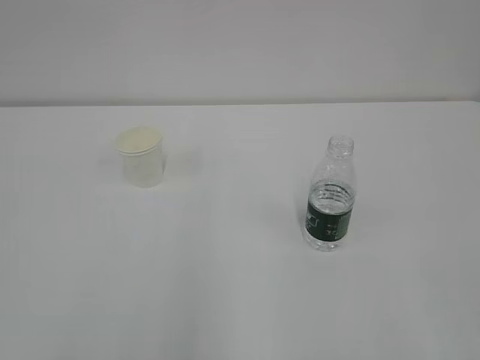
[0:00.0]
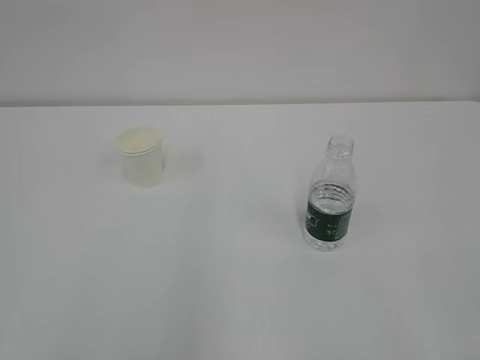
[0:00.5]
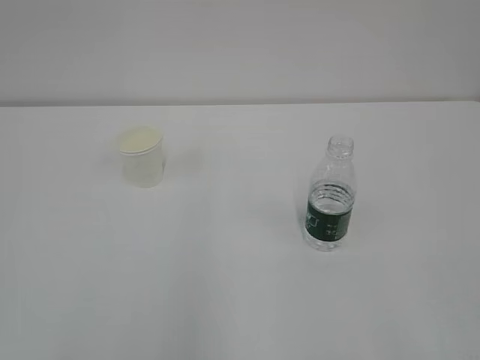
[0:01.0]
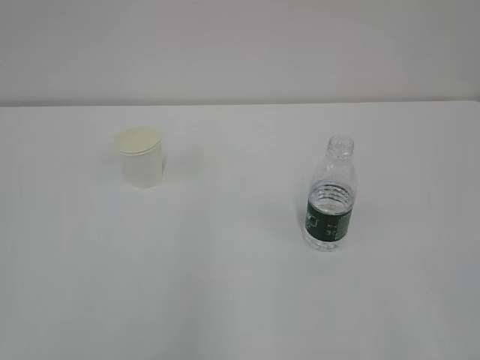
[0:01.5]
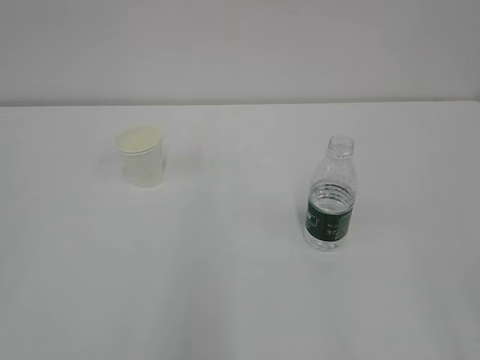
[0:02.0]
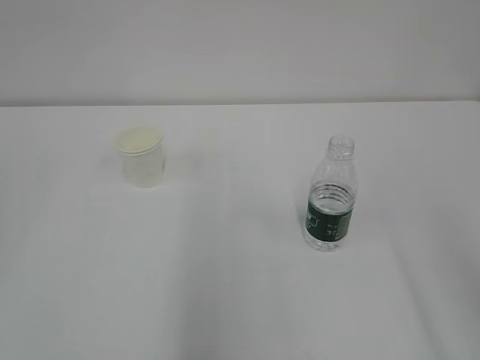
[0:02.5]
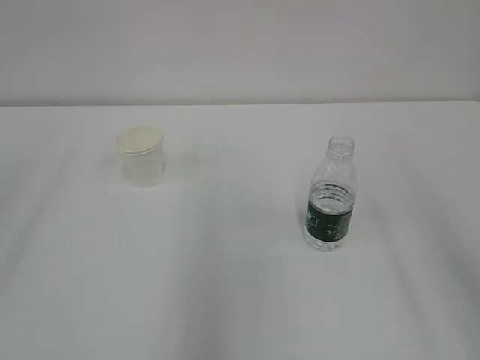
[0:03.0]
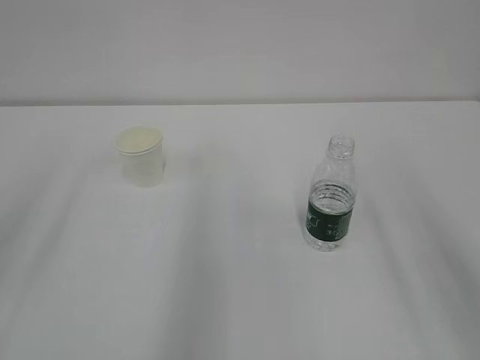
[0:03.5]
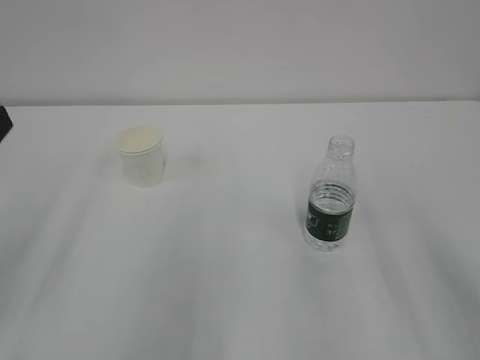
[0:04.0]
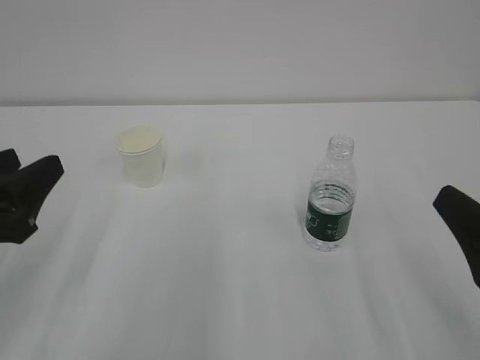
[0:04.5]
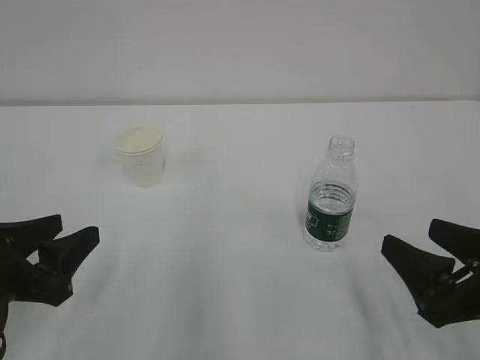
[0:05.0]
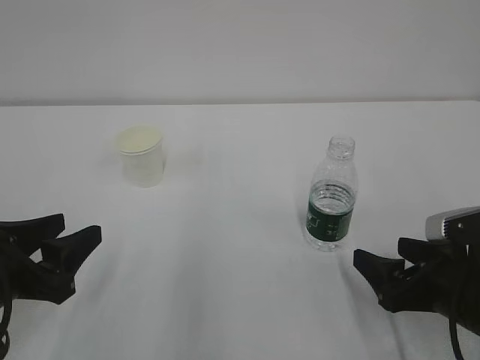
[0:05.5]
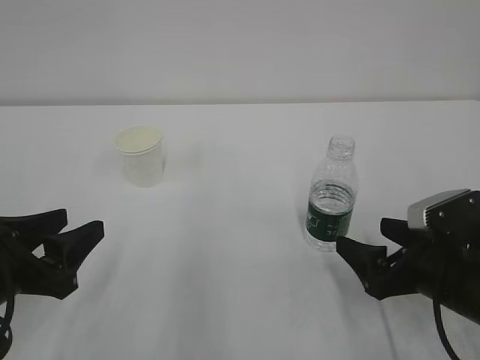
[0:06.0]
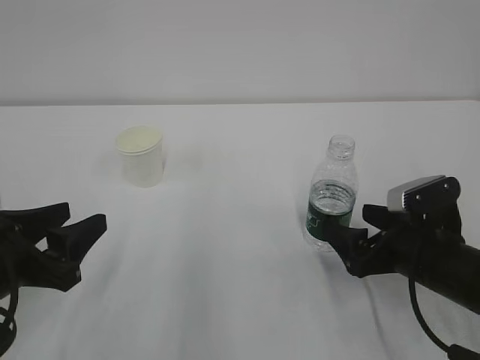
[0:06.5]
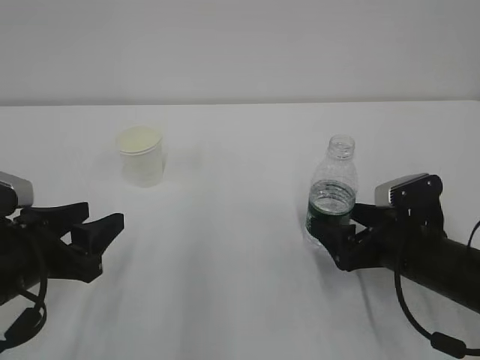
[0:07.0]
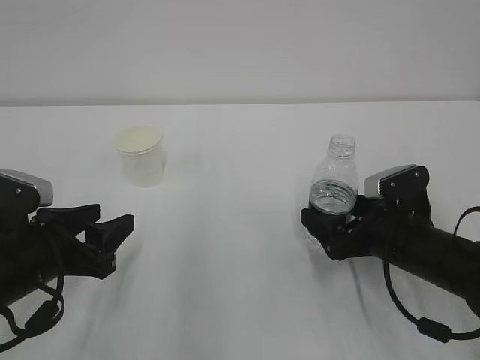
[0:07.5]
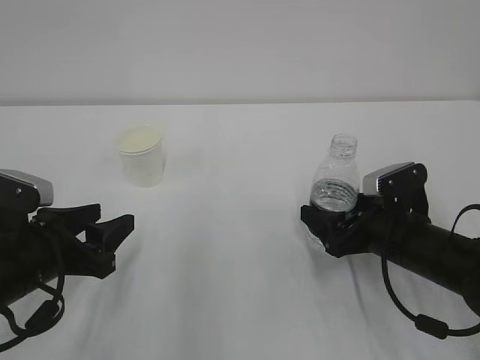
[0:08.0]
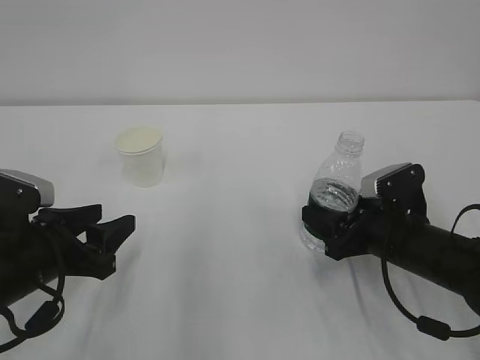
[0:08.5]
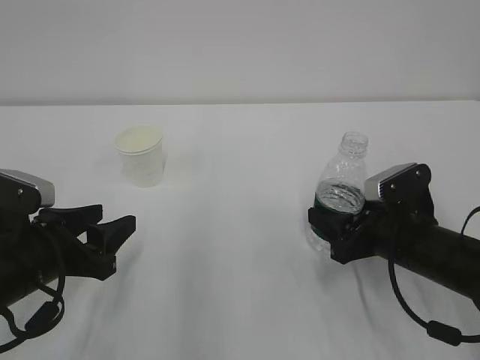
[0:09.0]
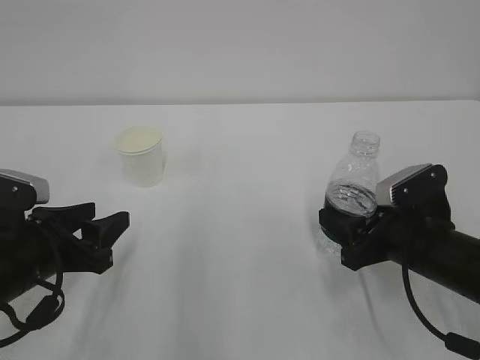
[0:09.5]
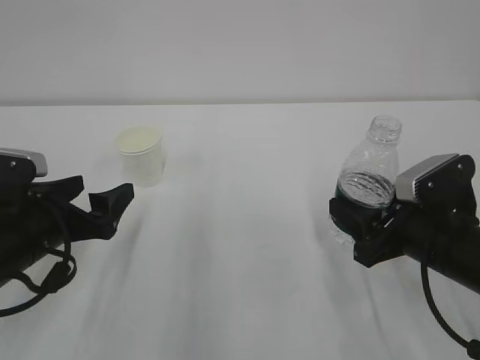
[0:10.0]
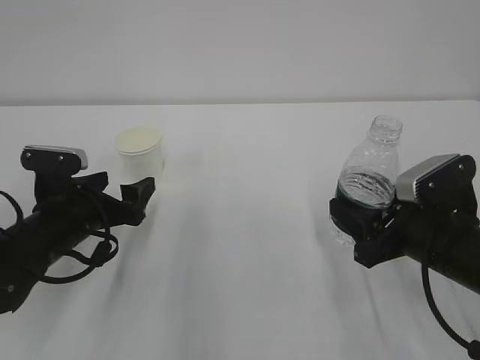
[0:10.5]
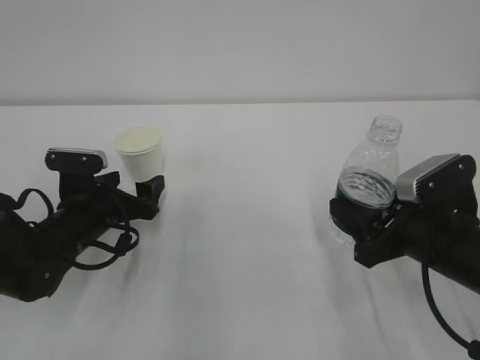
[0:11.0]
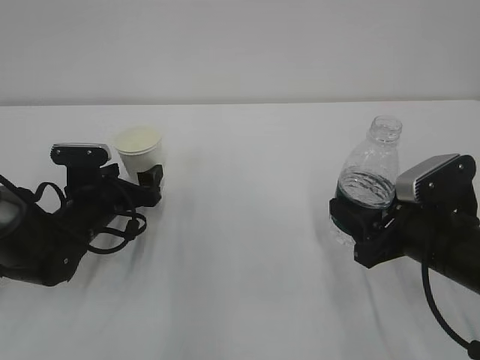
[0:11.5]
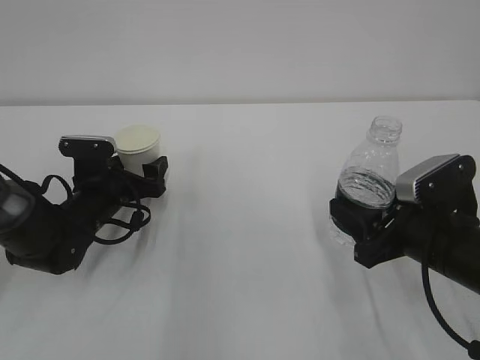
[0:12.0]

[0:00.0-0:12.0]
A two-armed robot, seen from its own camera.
0:04.0 to 0:06.0: The left gripper travels downward by approximately 10 cm. Meanwhile the right gripper heads downward and forward, covering approximately 20 cm, and opens up.
0:06.0 to 0:08.0: The right gripper moves forward, approximately 5 cm. The left gripper changes place by roughly 5 cm.
0:08.0 to 0:10.0: The right gripper shifts by approximately 5 cm, and closes up, while the left gripper opens up.
0:10.0 to 0:12.0: The left gripper goes approximately 15 cm forward and downward.

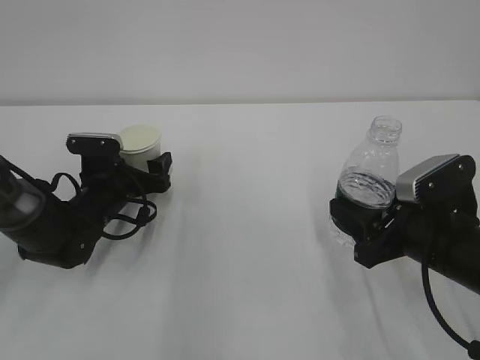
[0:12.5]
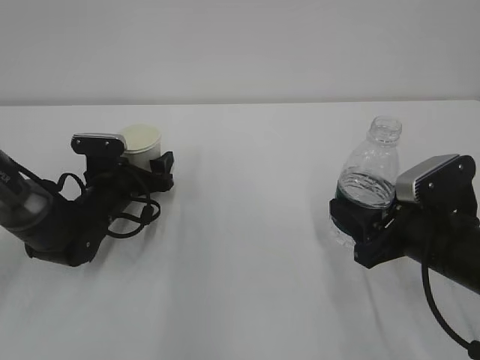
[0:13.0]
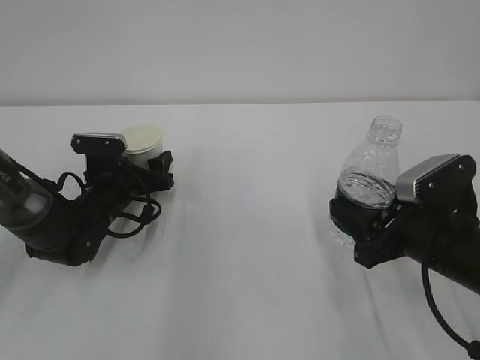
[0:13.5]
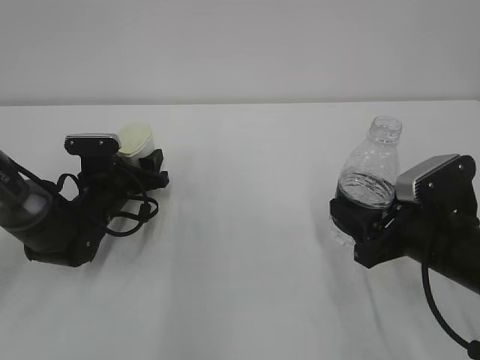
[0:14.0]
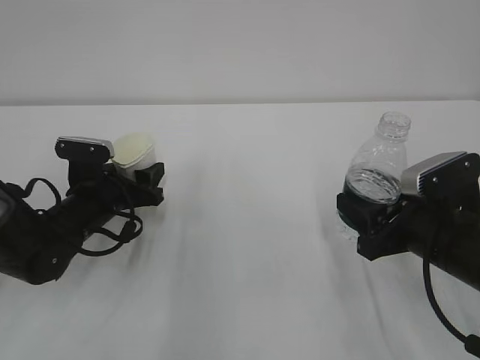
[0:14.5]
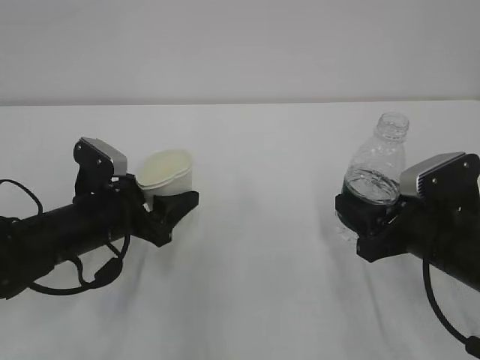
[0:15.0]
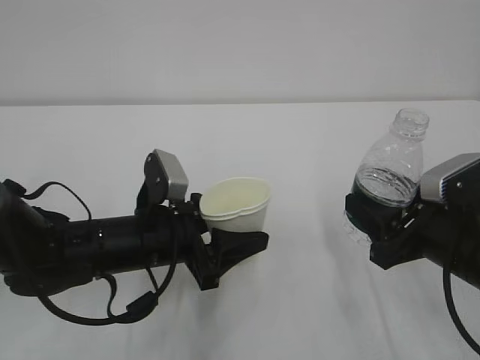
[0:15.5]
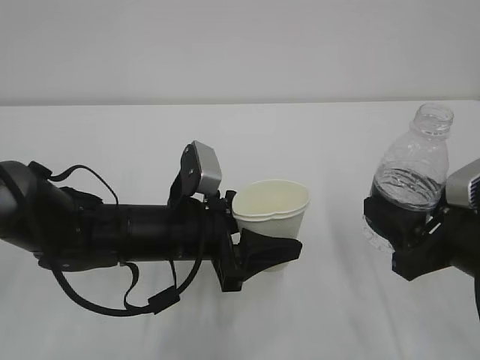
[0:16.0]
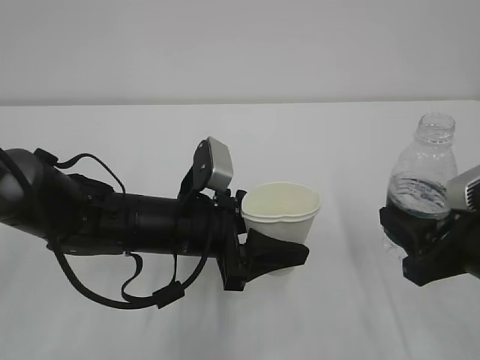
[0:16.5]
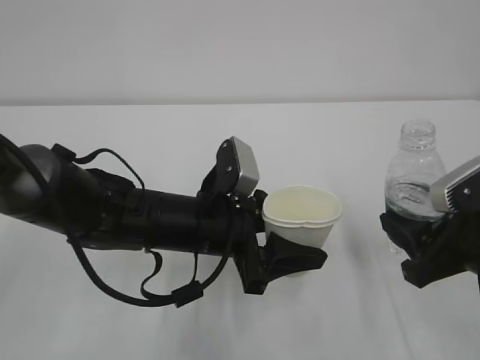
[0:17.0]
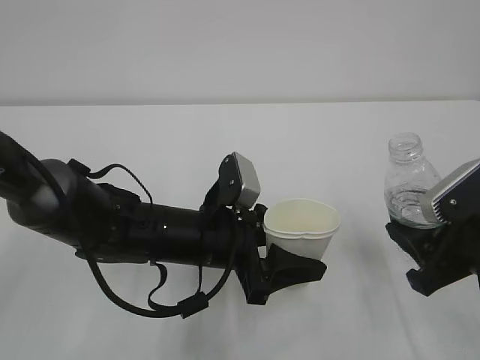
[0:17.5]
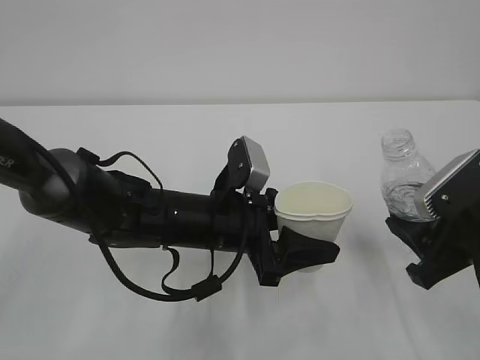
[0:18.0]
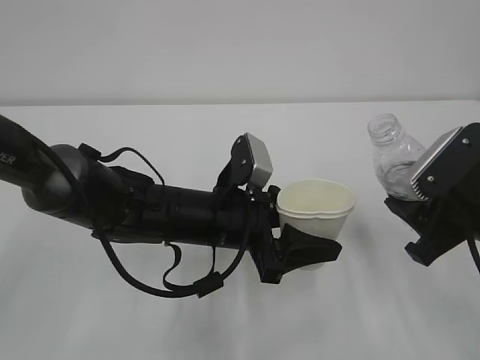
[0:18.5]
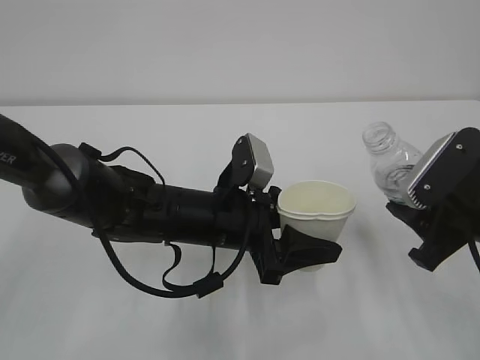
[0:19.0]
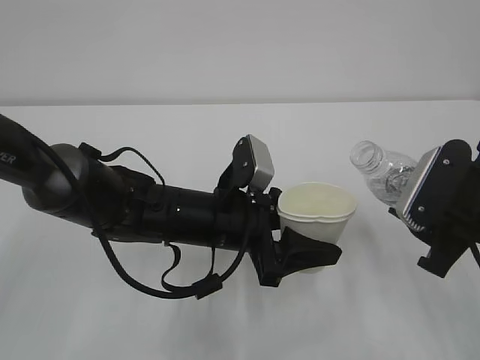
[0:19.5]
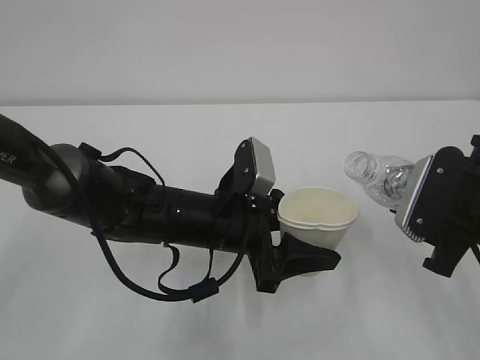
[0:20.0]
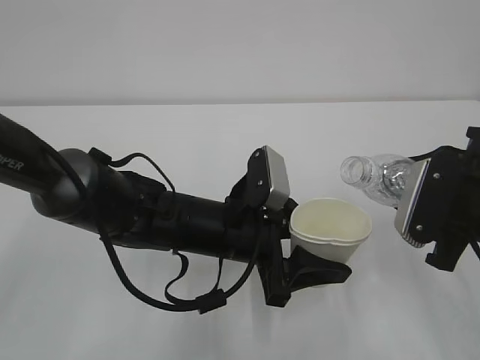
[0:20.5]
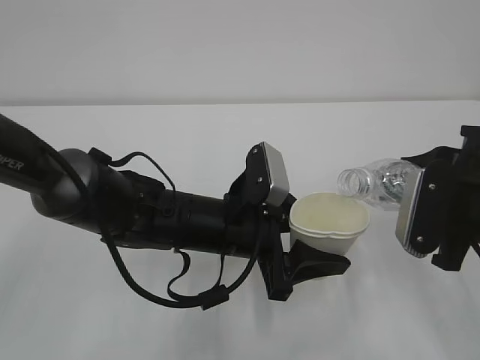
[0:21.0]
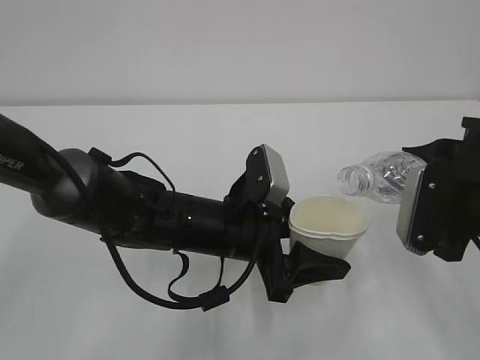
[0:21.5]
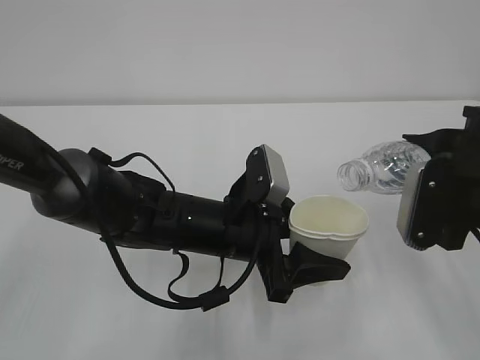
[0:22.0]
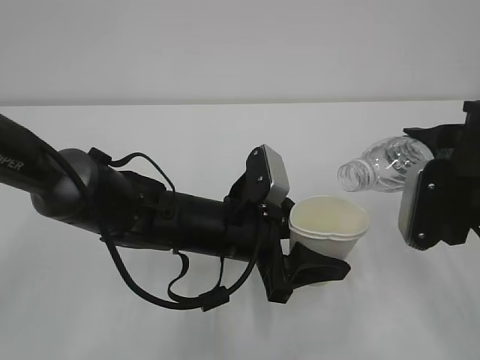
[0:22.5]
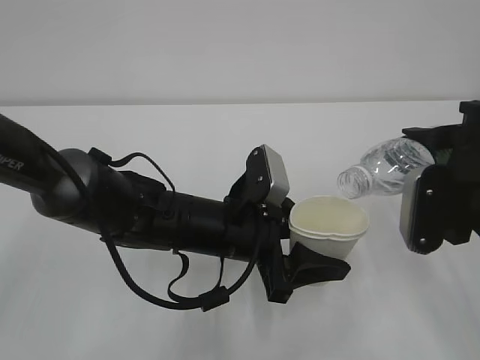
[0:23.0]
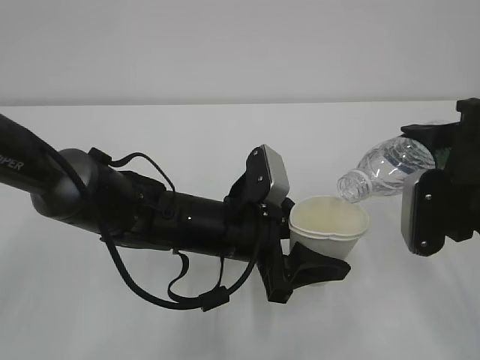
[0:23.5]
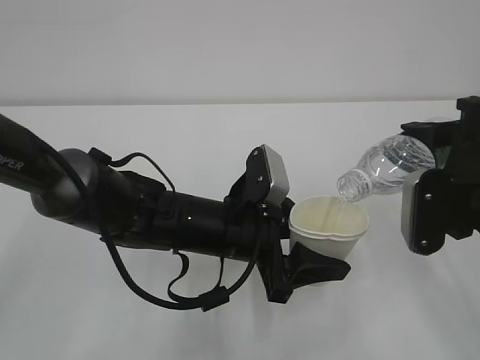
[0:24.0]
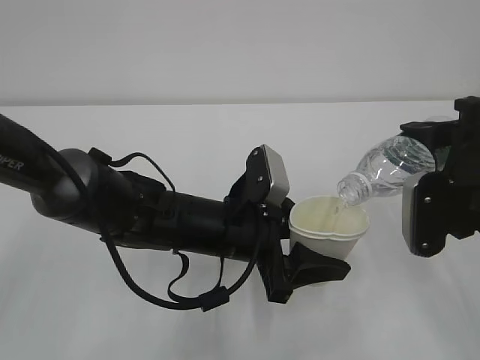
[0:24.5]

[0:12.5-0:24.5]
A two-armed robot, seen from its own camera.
0:12.5 to 0:14.5: The left gripper closes.
0:14.5 to 0:16.5: The right gripper changes place by some 5 cm, while the left gripper is displaced to the right, backward and upward by some 15 cm.
0:22.5 to 0:24.5: The grippers stay close to where they were, moving slightly.

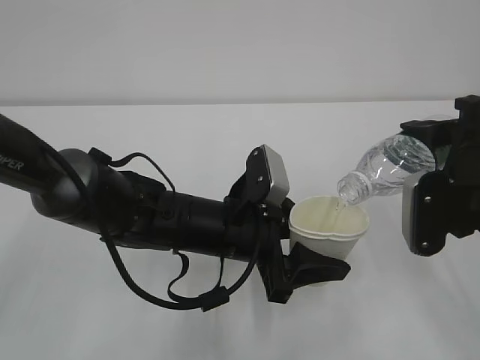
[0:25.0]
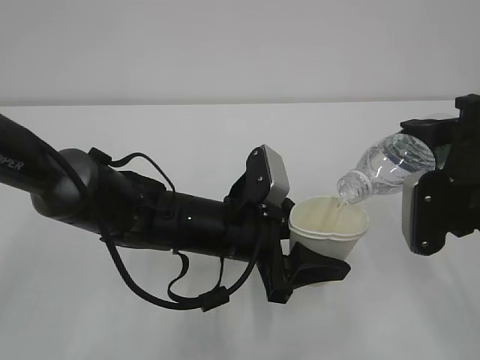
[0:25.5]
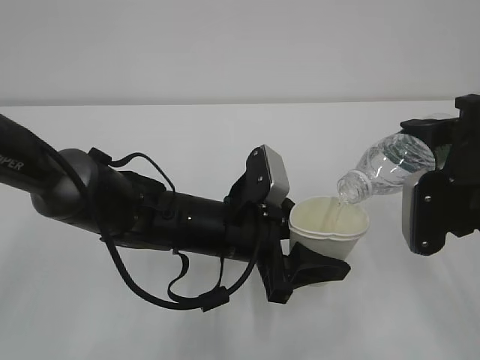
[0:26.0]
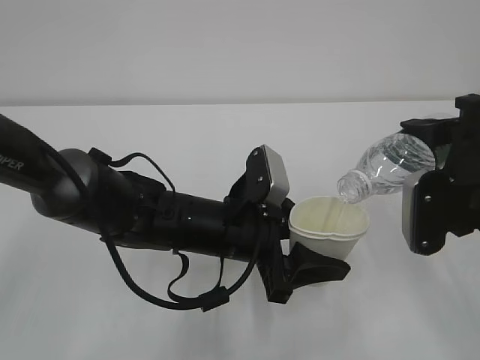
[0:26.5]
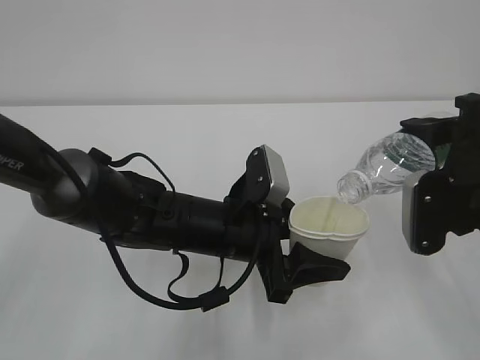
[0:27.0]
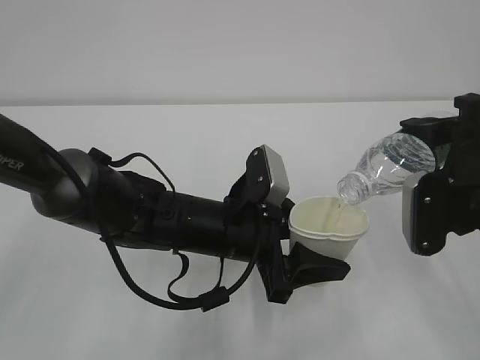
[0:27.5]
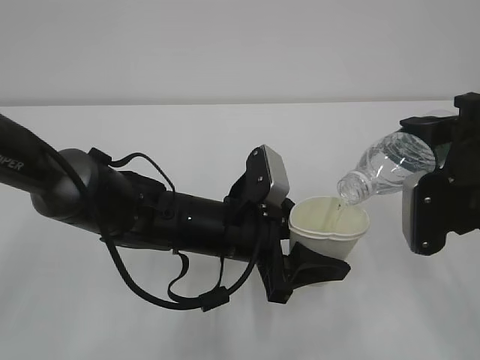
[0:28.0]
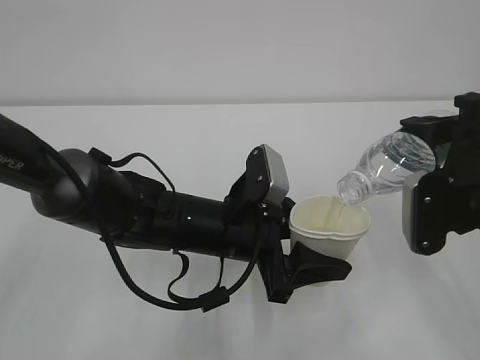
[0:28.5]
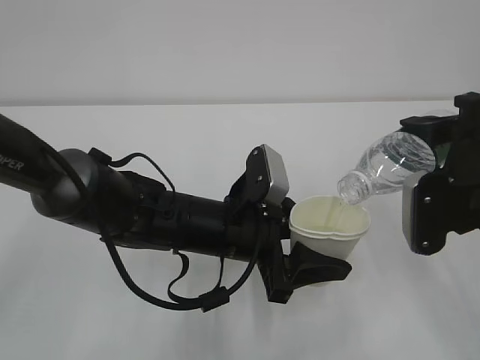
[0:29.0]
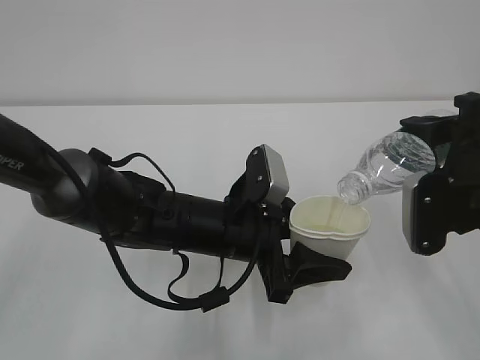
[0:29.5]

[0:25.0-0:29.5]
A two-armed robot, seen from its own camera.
0:25.0 to 0:29.5: Neither gripper changes place.
